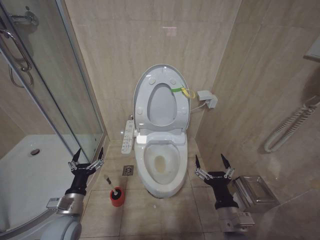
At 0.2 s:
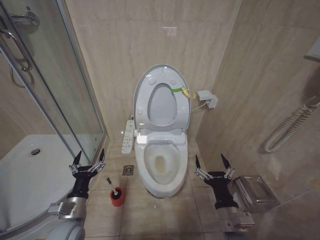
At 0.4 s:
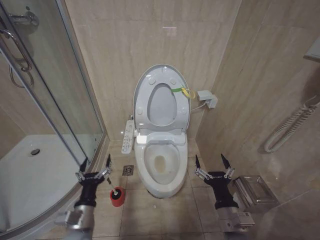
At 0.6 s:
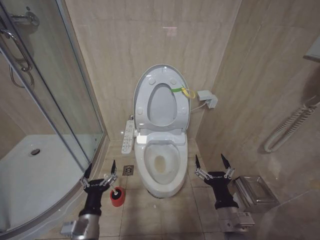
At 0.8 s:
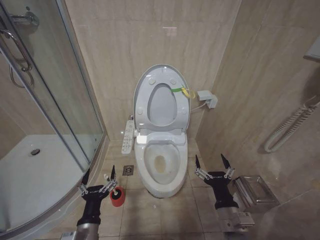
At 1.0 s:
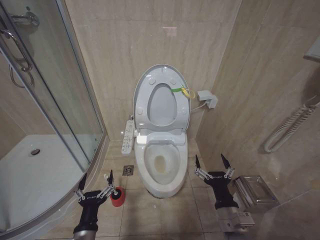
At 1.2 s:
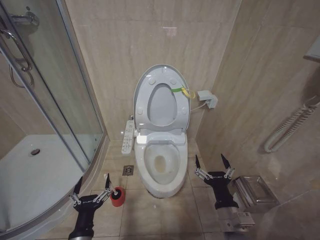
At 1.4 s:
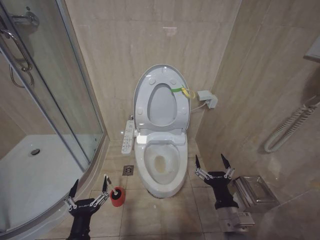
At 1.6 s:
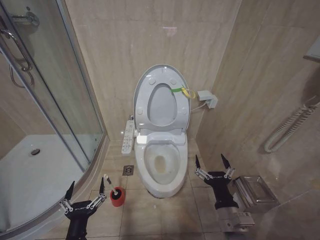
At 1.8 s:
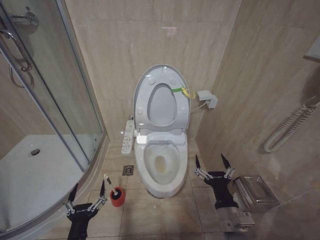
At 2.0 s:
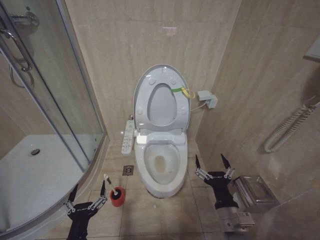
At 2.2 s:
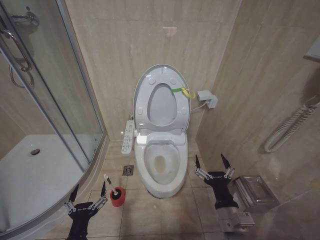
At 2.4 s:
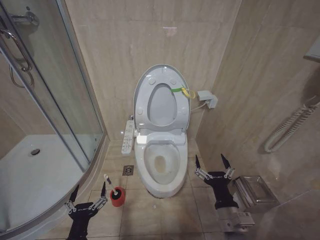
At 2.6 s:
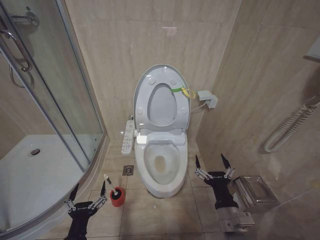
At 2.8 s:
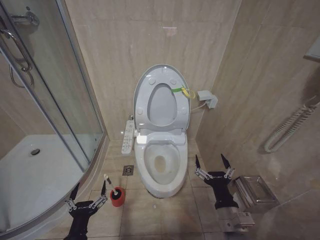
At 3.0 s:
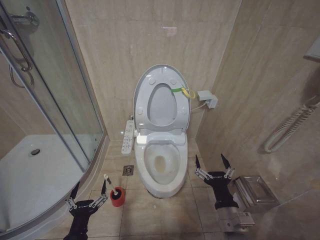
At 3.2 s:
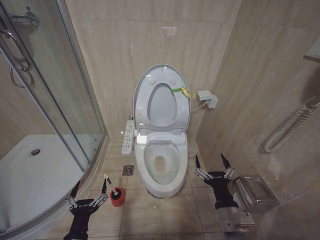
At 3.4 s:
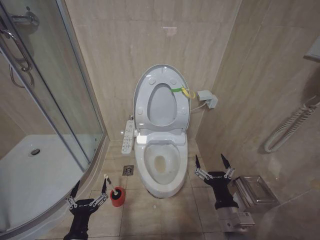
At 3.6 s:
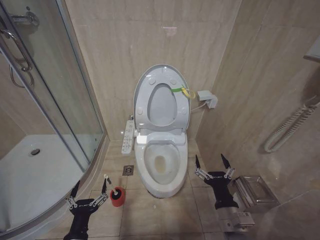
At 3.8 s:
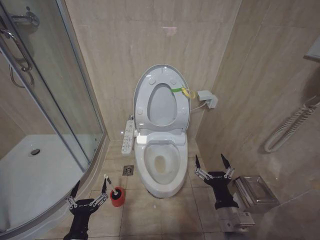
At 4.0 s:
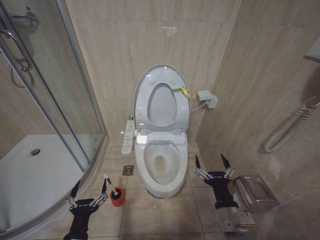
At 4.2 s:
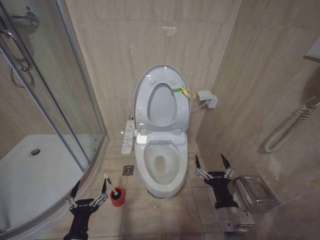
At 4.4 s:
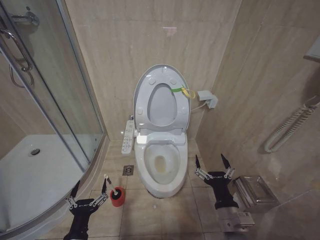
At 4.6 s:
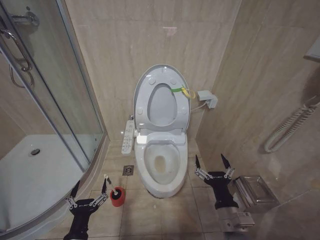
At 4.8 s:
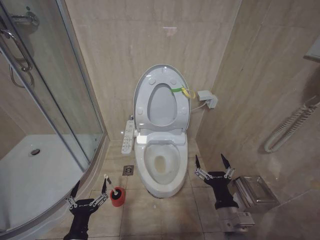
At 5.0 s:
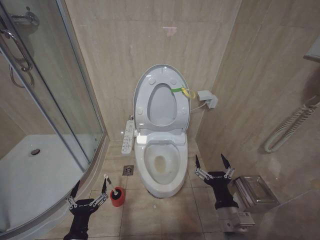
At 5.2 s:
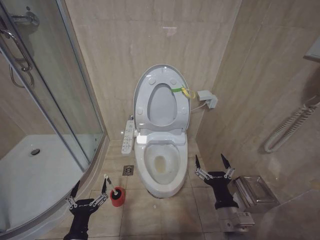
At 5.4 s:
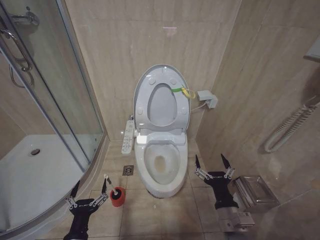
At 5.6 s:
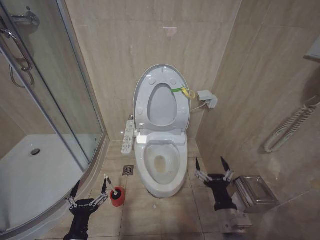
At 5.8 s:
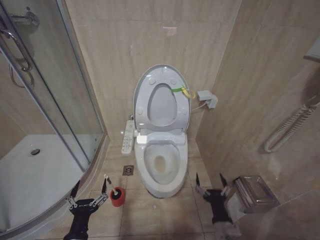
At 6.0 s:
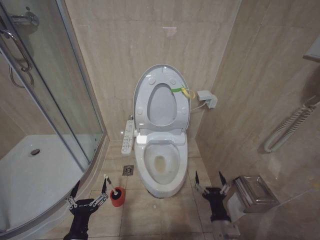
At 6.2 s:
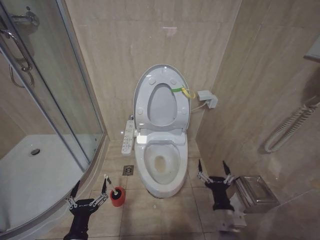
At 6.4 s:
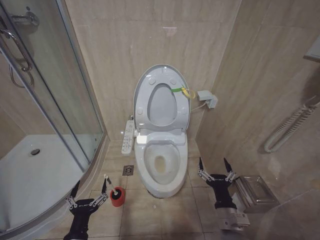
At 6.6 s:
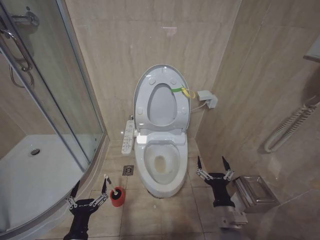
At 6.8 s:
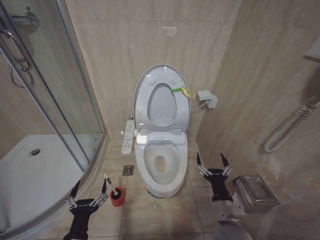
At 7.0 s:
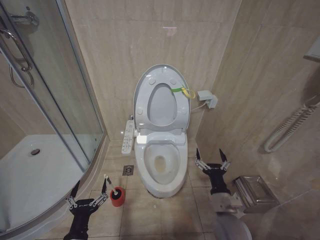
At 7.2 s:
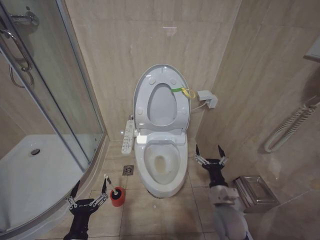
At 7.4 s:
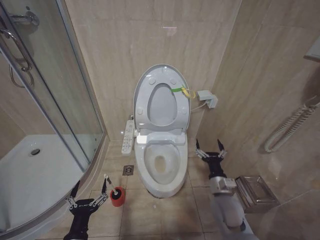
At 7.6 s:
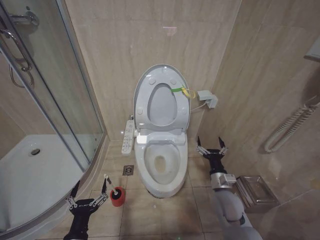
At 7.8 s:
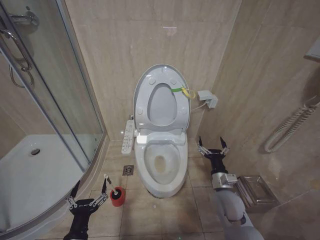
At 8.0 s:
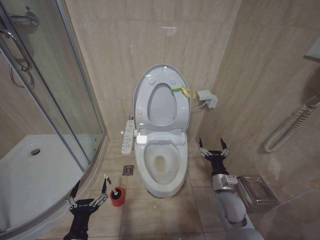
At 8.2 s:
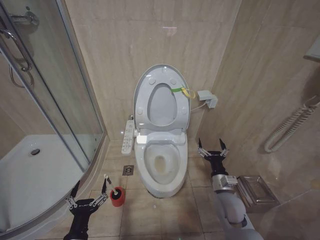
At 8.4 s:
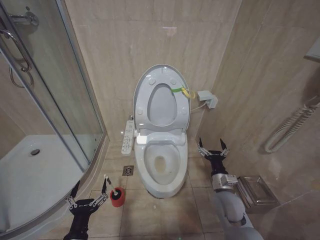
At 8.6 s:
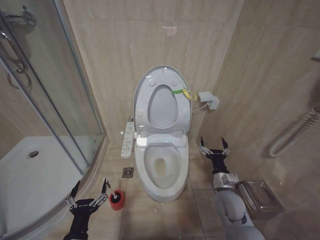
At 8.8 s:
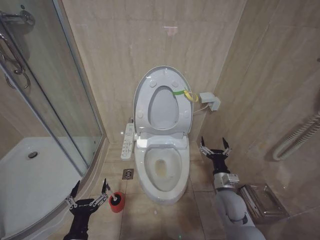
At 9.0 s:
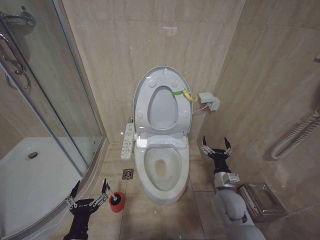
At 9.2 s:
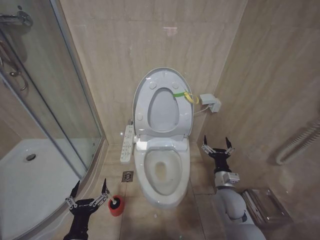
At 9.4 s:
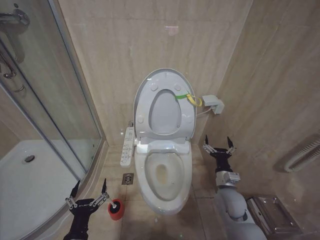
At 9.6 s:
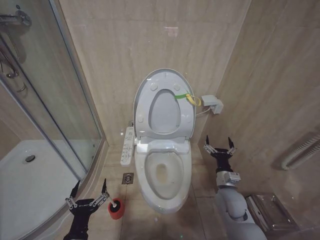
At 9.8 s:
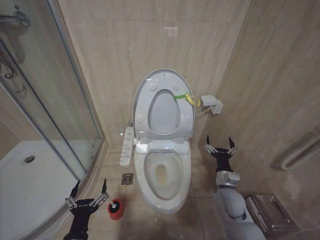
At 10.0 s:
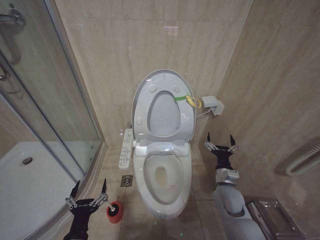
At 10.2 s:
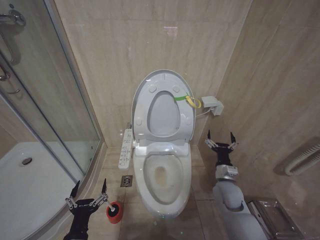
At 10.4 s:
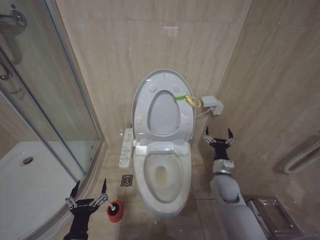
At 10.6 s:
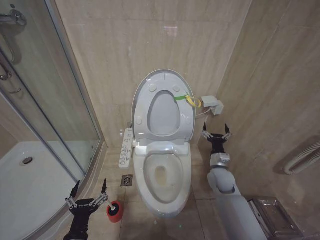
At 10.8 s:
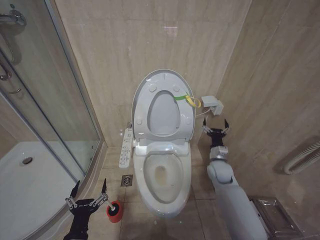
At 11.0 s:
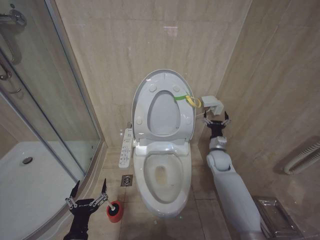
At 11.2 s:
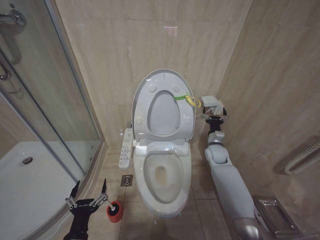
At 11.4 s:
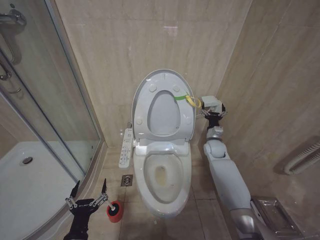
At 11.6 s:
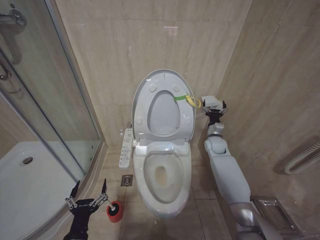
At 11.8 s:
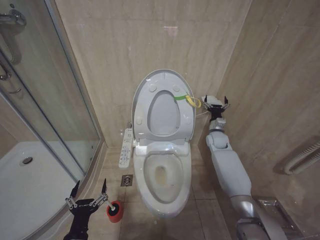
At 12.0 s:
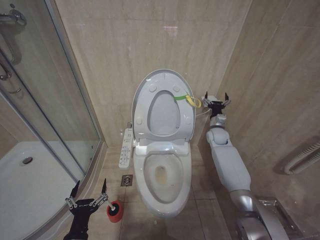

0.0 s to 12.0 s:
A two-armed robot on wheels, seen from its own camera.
Task of the whole recording: Open the toilet lid, clean the toilet bowl with a toilet brush, close the toilet lid, and flush.
0.0 to 1.6 s: The left gripper moves backward and to the right, approximately 15 cm.
3.0 to 4.4 s: Both grippers stay put.
4.4 to 6.0 s: The right gripper heads downward, covering approximately 10 cm.
6.0 to 7.6 s: The right gripper moves forward and upward, roughly 15 cm.
7.6 to 10.4 s: There are only small adjustments of the grippers.
10.4 to 12.0 s: The right gripper goes about 20 cm forward and upward.

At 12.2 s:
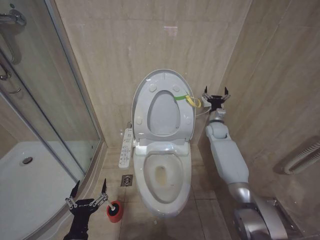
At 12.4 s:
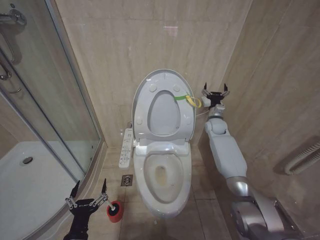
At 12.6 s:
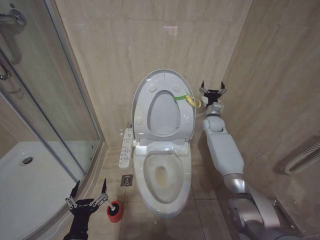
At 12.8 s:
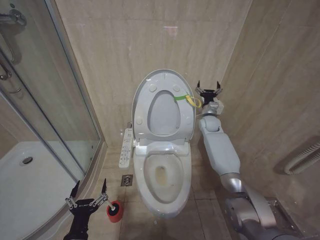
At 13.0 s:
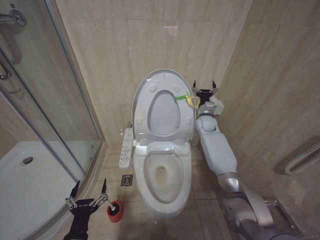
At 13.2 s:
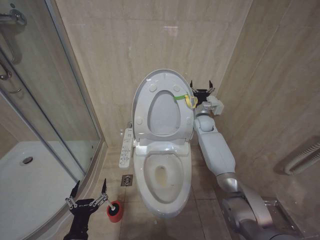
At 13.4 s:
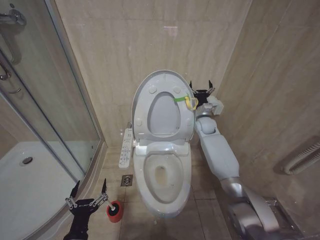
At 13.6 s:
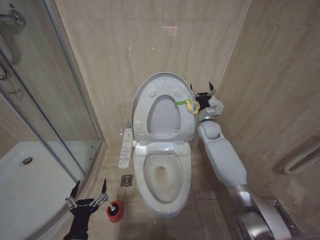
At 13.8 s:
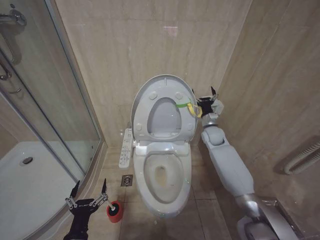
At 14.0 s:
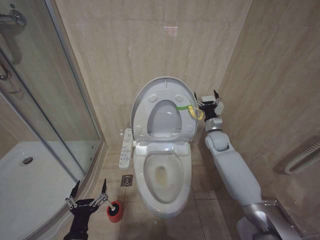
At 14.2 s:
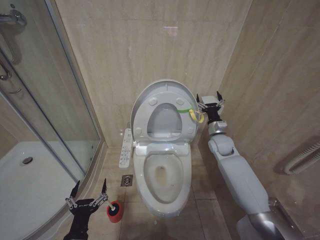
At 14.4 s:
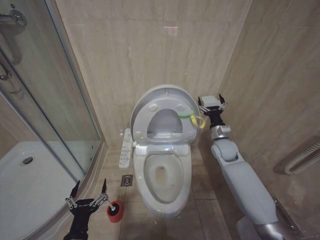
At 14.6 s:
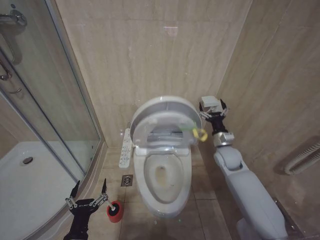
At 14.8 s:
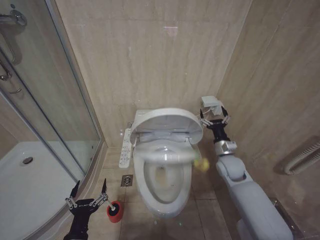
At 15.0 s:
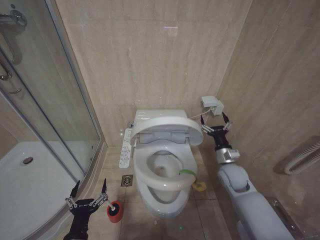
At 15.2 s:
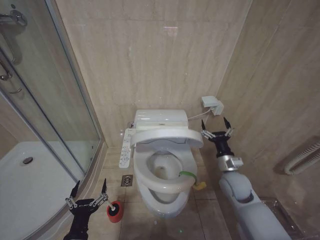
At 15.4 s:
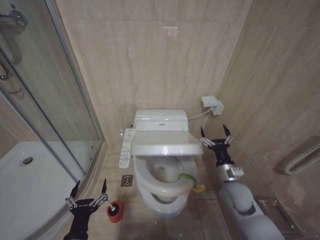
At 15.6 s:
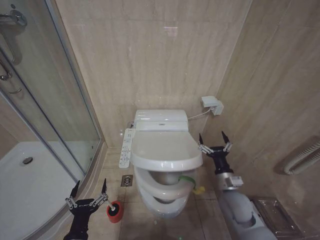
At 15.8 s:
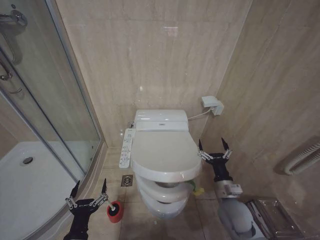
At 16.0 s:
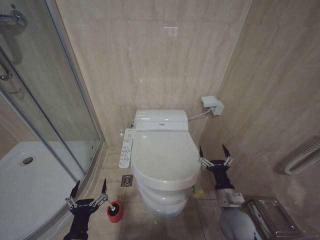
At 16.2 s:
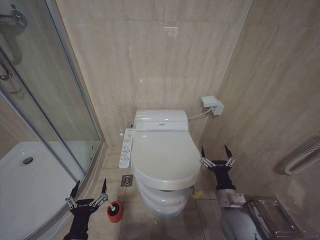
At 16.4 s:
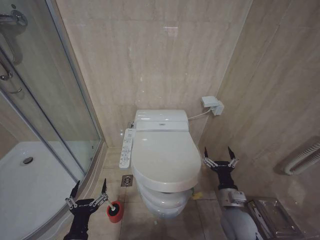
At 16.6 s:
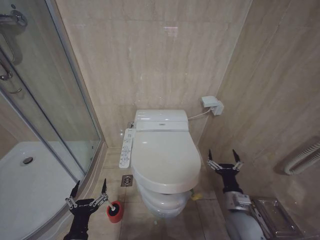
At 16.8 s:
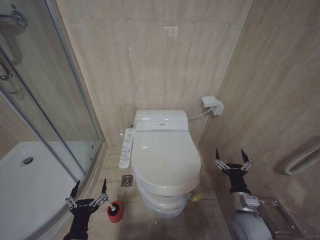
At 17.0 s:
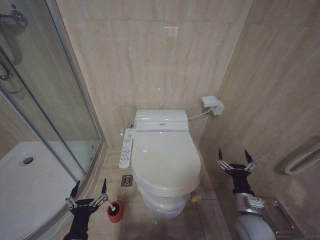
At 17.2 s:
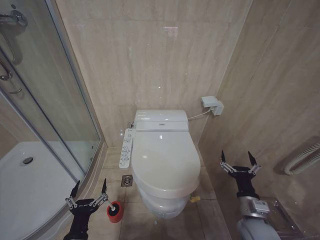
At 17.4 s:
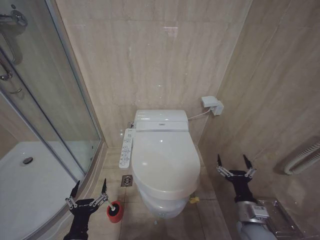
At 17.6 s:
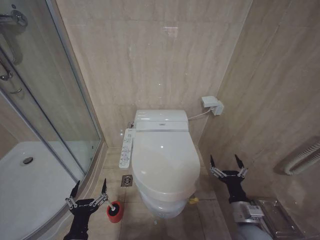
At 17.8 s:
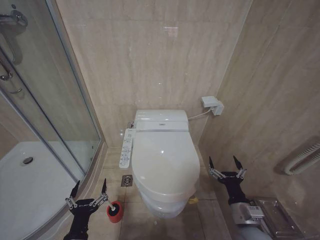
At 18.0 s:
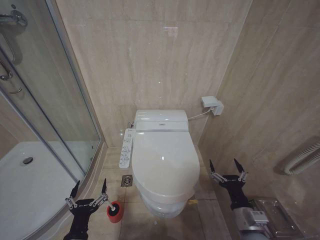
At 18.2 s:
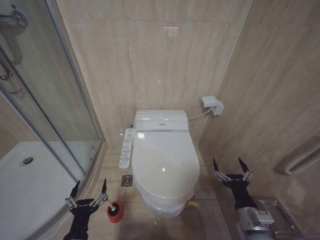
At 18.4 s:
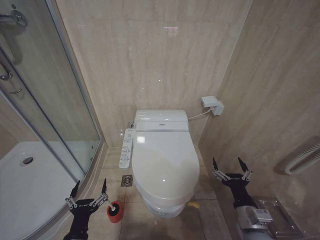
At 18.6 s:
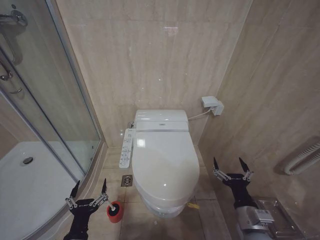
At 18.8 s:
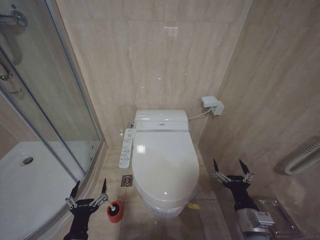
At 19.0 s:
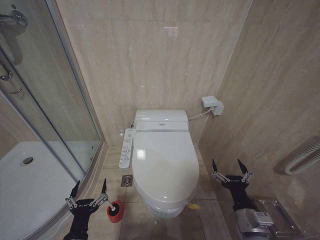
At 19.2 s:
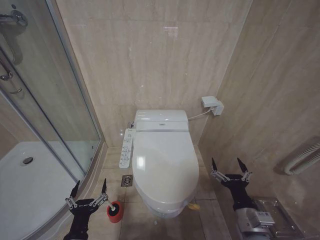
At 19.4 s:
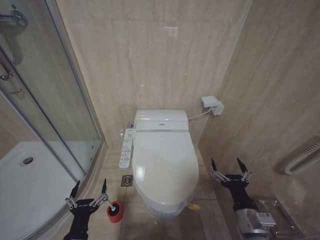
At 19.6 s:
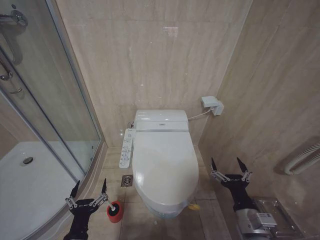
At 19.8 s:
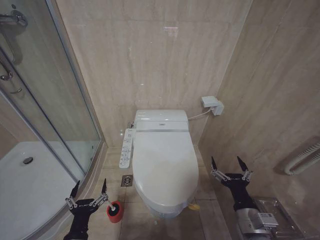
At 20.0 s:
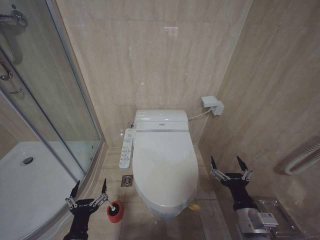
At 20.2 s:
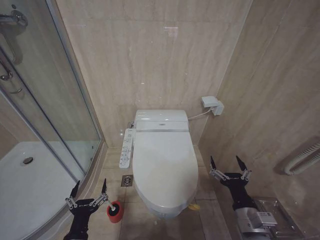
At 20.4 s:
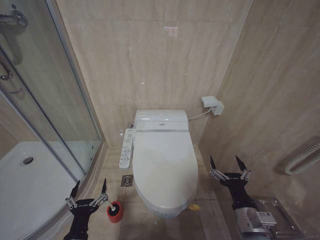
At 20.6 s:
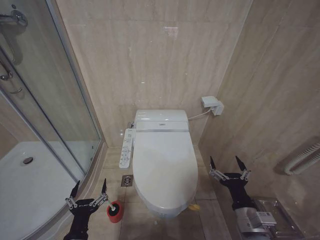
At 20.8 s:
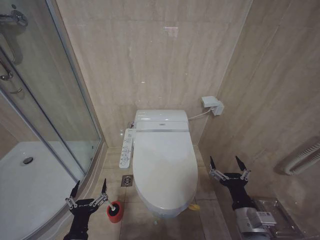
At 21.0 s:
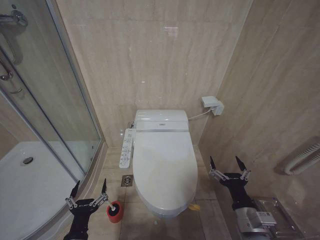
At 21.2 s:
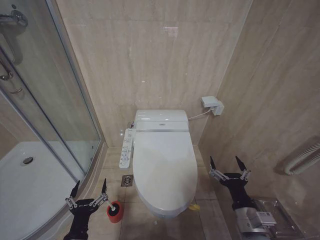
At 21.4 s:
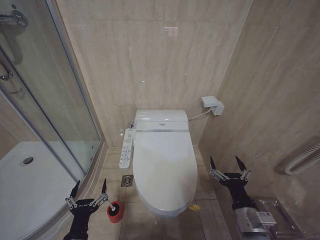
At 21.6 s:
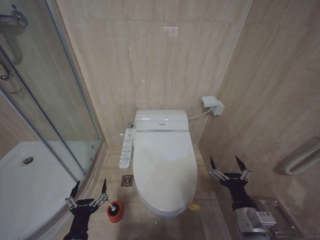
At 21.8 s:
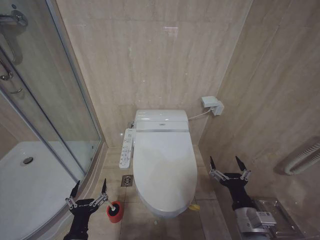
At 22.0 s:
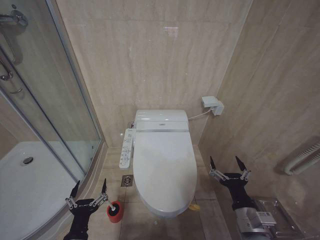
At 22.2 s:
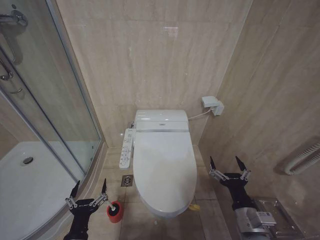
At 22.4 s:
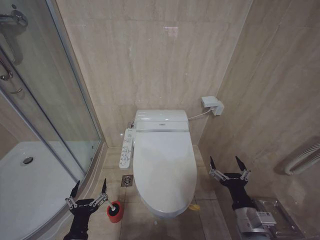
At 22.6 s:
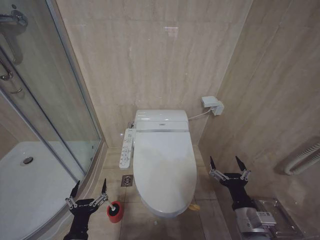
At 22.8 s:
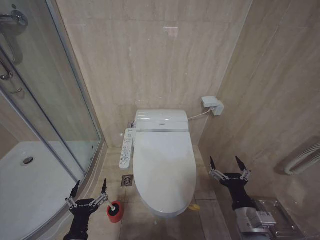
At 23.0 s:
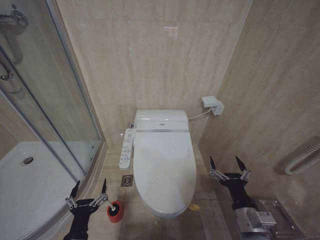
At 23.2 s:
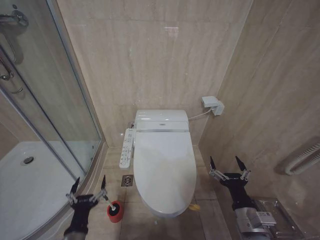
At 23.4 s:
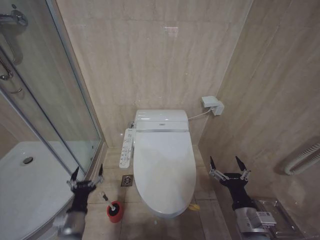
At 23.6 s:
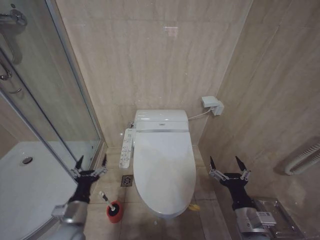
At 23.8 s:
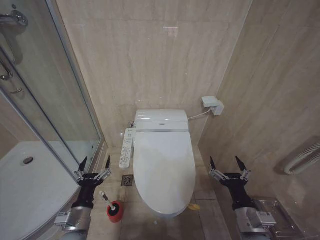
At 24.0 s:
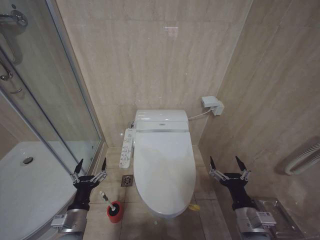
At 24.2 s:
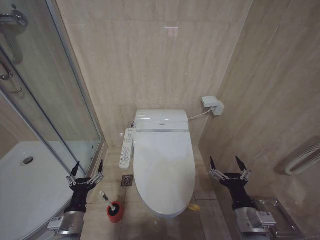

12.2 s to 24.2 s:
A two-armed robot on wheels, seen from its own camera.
Task of the whole recording: Open the toilet lid, clean the toilet bowl with a toilet brush, close the toilet lid, and flush.
13.8 to 15.2 s: The right gripper shifts approximately 20 cm backward.
15.2 to 16.6 s: The right gripper heads backward and downward, covering some 15 cm.
16.6 to 18.2 s: The right gripper goes approximately 5 cm backward.
19.8 to 22.6 s: Neither gripper changes place.
22.6 to 24.2 s: The left gripper moves forward, about 5 cm.
